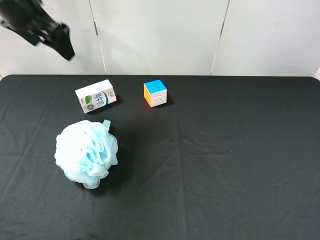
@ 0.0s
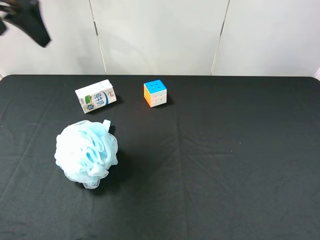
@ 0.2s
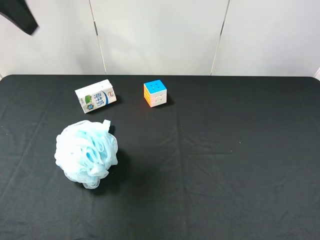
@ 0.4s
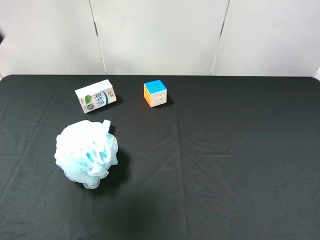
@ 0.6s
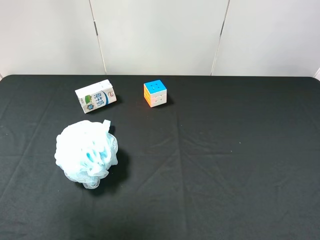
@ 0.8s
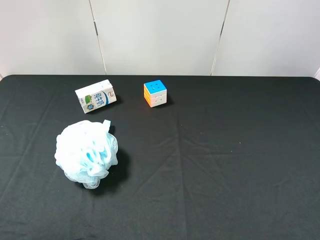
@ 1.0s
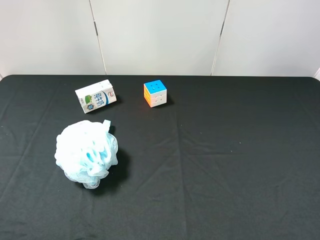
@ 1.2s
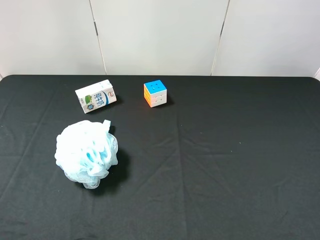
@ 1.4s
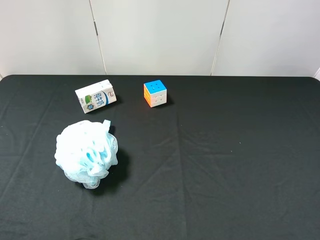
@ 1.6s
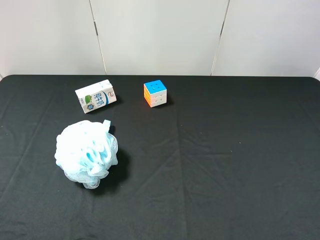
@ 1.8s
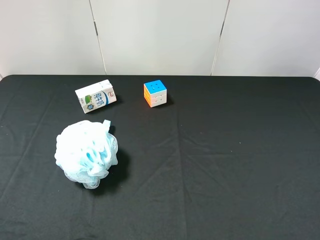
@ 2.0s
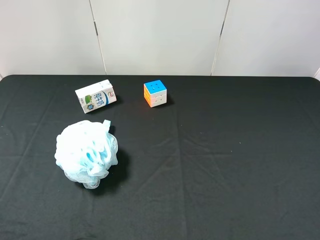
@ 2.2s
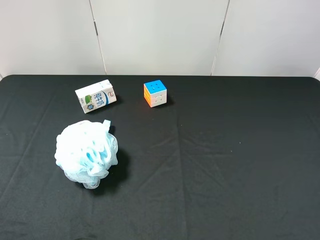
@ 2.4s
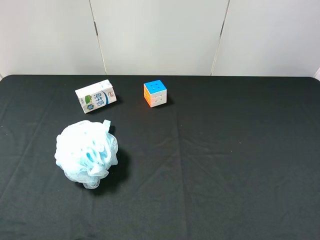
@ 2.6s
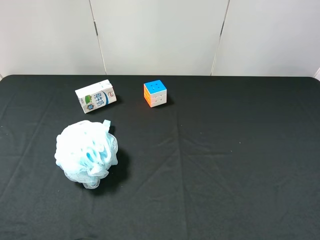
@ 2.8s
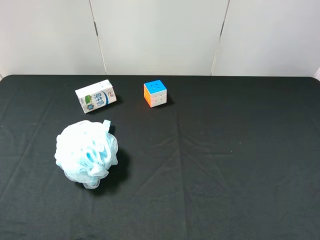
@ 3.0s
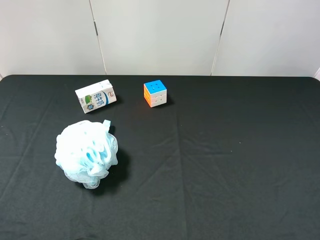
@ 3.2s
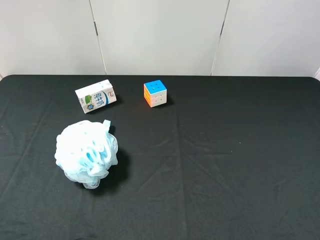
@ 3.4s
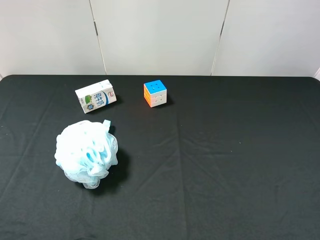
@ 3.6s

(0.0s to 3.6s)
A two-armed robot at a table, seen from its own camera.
Task of the whole recording: use the right gripper to pick up the item and transfer it from the right gripper to the left gripper.
0.0s - 1.8s: The left gripper moves backward, approximately 35 cm.
